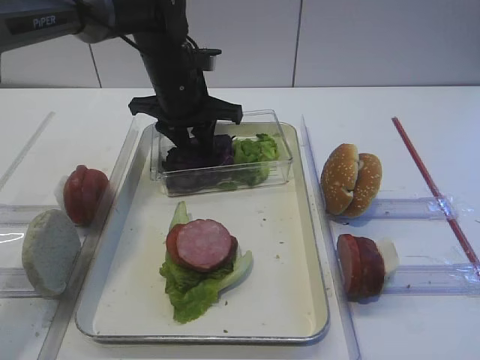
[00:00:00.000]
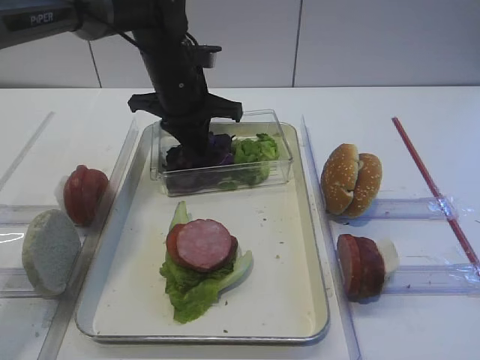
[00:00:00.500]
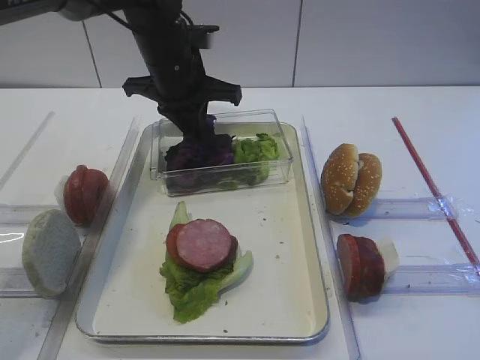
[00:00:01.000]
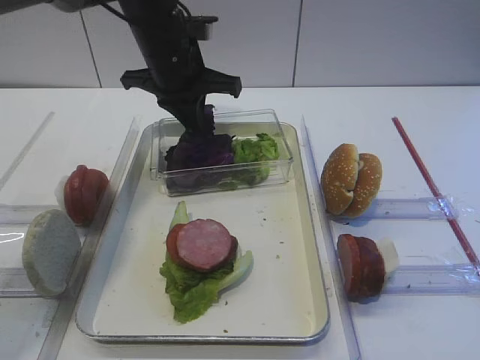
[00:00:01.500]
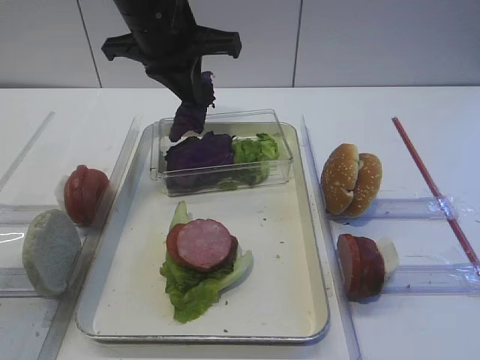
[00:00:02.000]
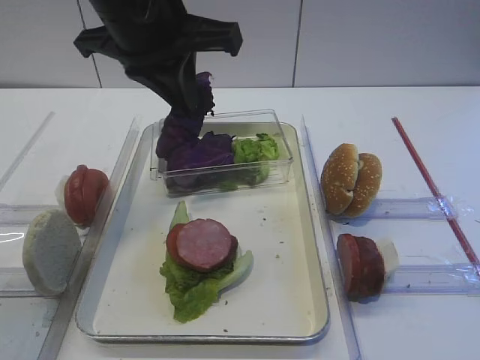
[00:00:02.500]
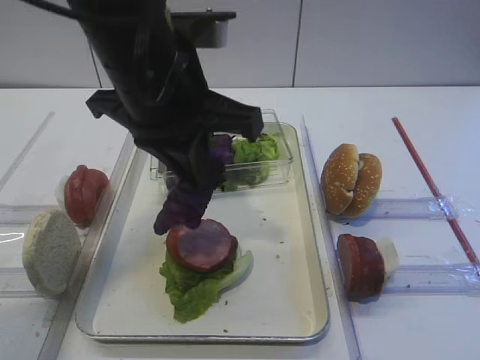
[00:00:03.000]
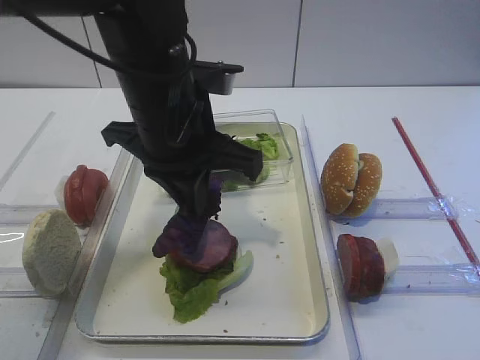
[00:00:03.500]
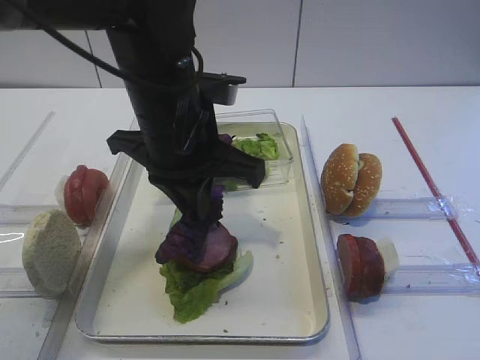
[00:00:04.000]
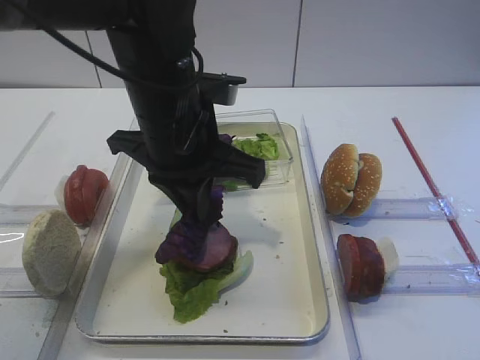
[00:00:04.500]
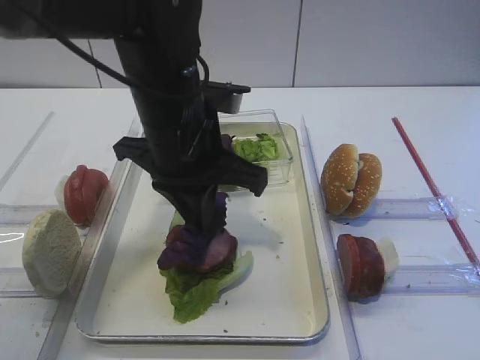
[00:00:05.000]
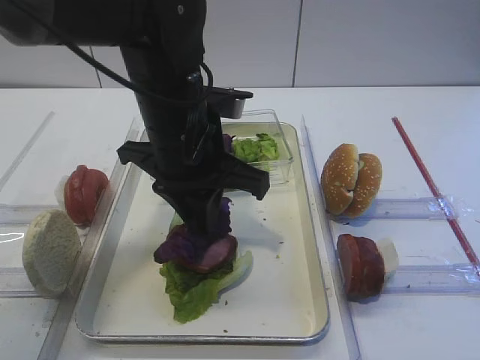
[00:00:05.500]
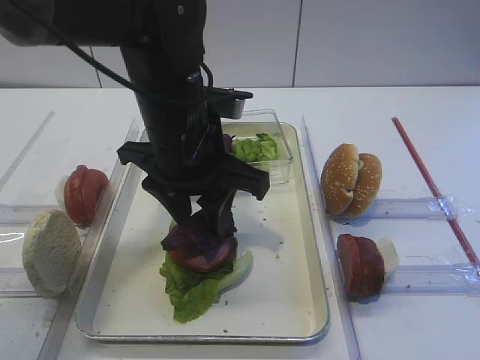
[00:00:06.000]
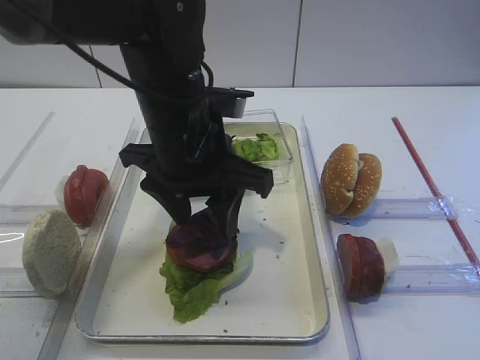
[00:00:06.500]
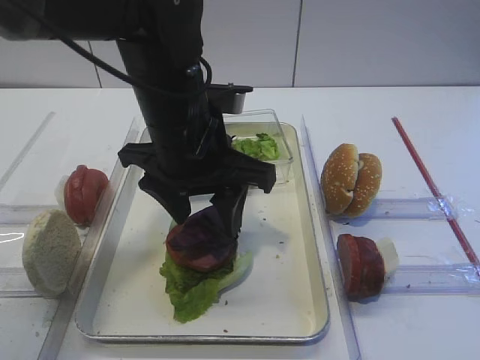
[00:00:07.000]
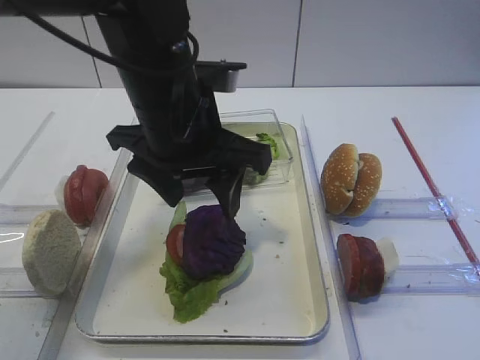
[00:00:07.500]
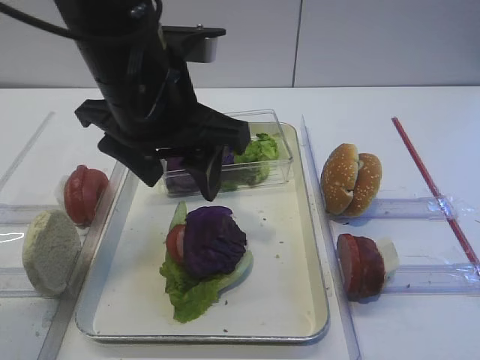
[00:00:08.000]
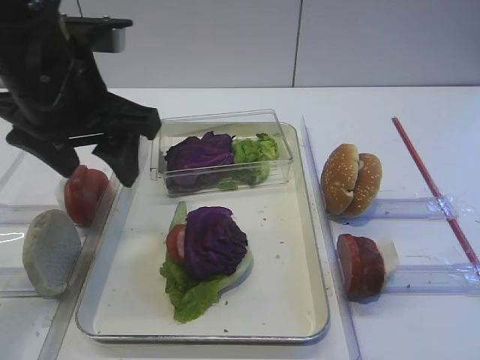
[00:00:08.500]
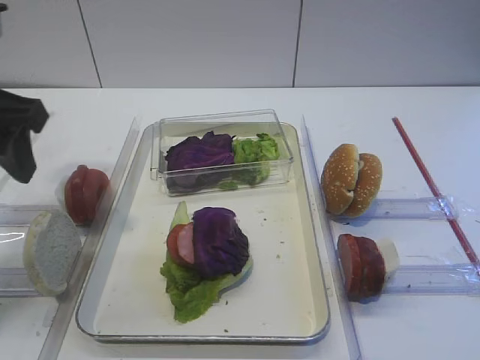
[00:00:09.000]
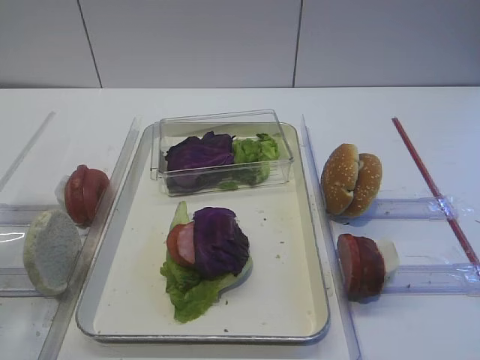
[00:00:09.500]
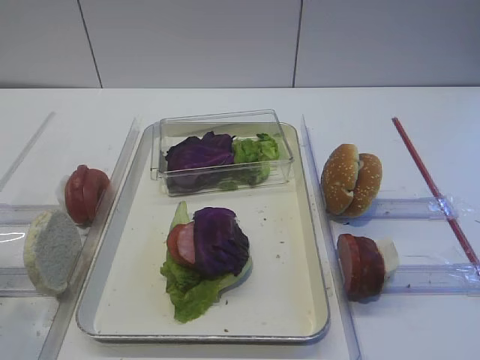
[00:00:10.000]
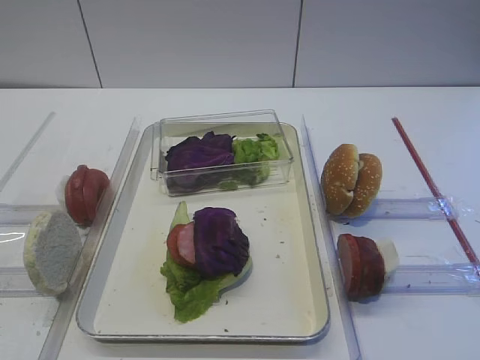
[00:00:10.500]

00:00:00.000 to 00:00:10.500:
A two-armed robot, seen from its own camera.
Step, 00:00:00.000 to 00:00:02.000: Pick up the purple cabbage with the left gripper.
Step, 00:00:02.500 to 00:00:08.500: Place the purple cabbage on the cutlet with the left gripper.
00:00:00.000 to 00:00:02.000: The left gripper heads upward, covering approximately 10 cm, and closes.
00:00:02.000 to 00:00:04.000: The left gripper is displaced backward and downward by about 10 cm.
00:00:04.000 to 00:00:06.500: The left gripper opens.
00:00:06.500 to 00:00:08.500: The left gripper moves to the left and upward, about 10 cm.
00:00:08.500 to 00:00:10.500: The left gripper moves backward and to the left, approximately 30 cm.

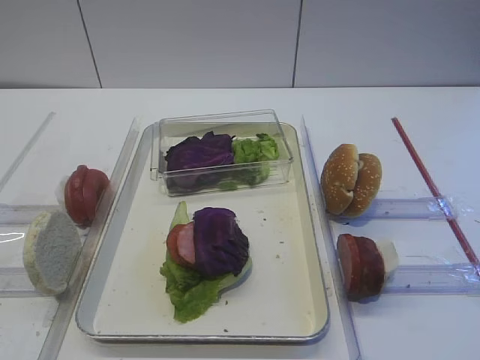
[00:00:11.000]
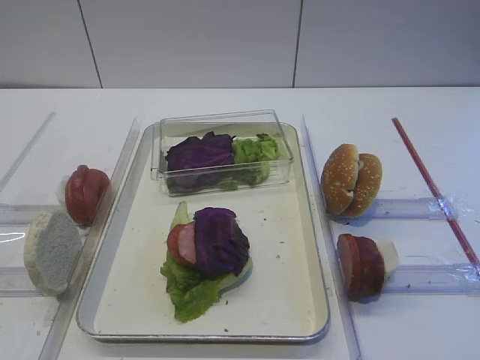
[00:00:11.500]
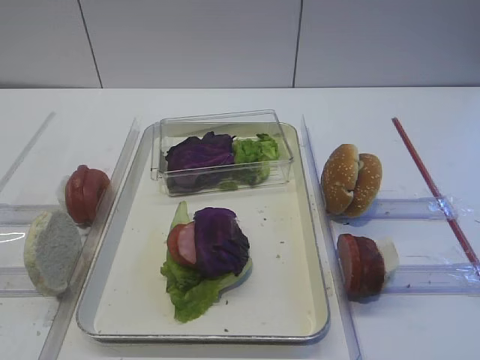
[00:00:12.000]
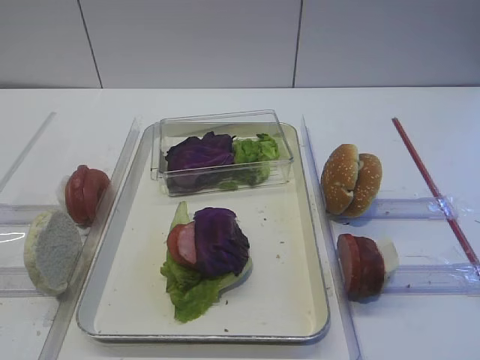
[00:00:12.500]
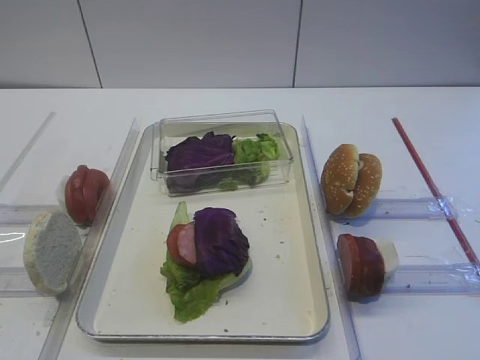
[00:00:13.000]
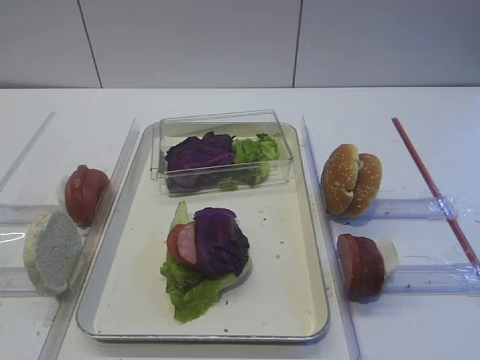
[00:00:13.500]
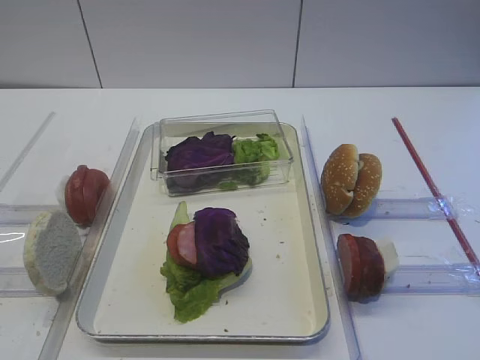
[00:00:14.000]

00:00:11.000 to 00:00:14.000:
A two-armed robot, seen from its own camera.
00:00:12.500 to 00:00:14.000: Both grippers stay about where they are.

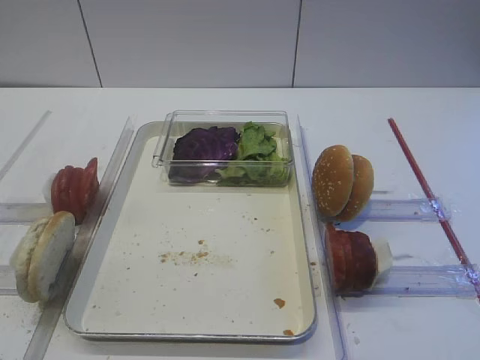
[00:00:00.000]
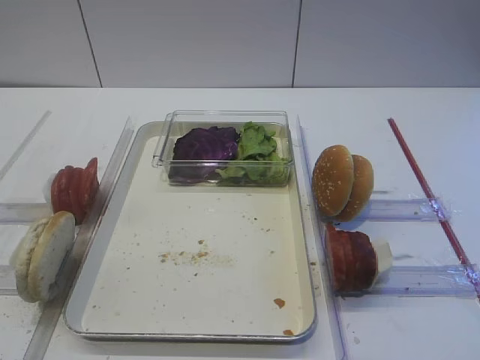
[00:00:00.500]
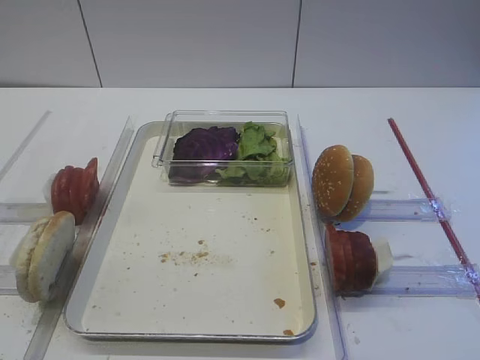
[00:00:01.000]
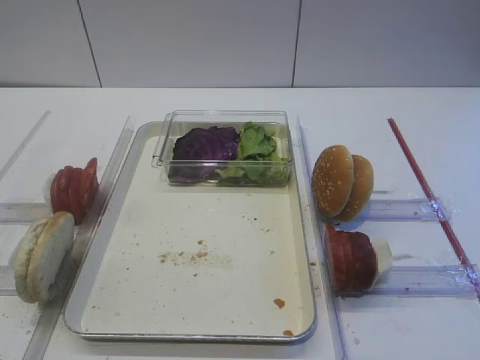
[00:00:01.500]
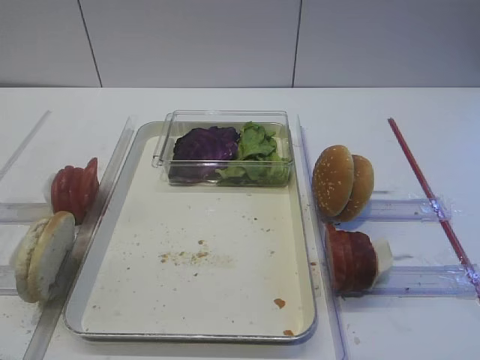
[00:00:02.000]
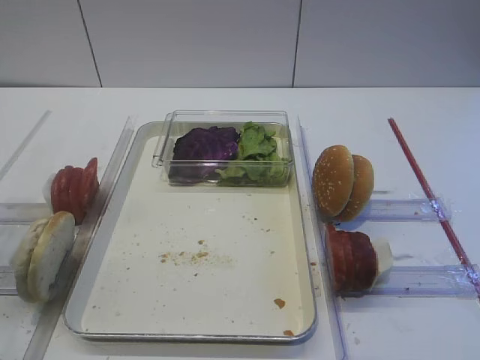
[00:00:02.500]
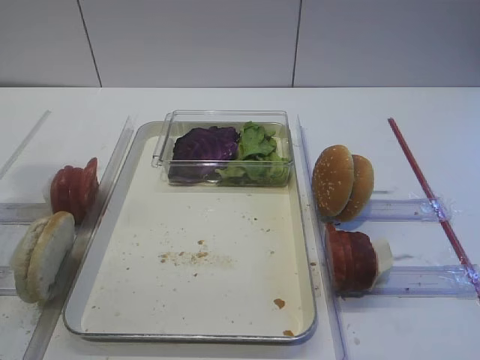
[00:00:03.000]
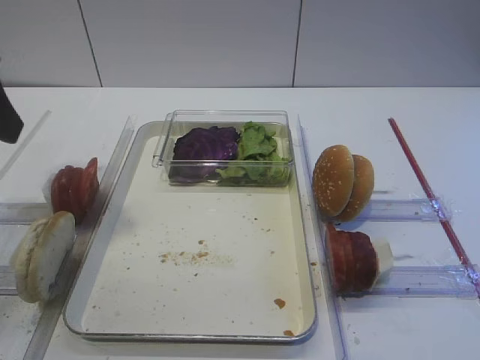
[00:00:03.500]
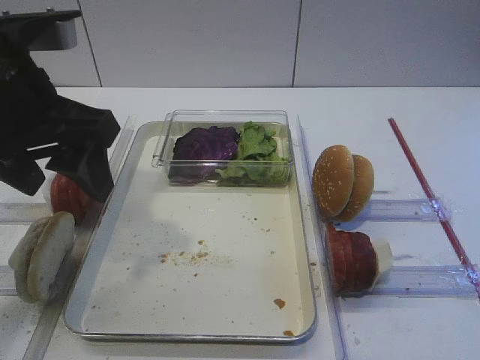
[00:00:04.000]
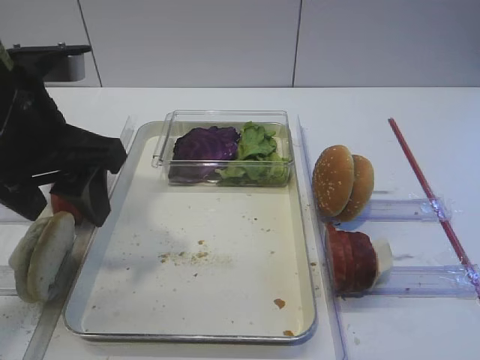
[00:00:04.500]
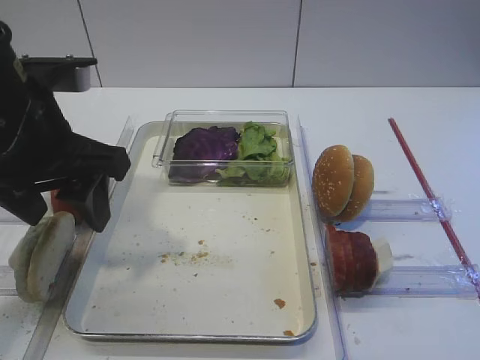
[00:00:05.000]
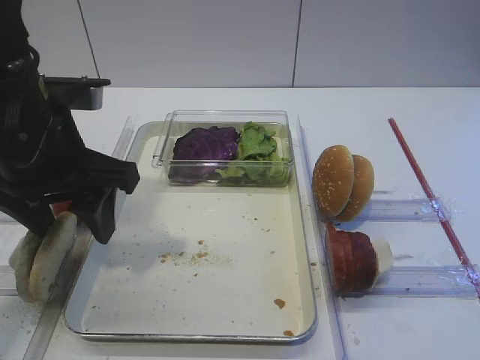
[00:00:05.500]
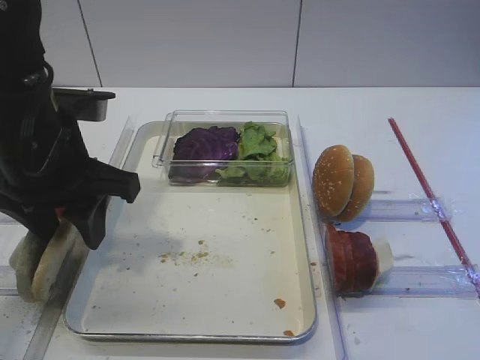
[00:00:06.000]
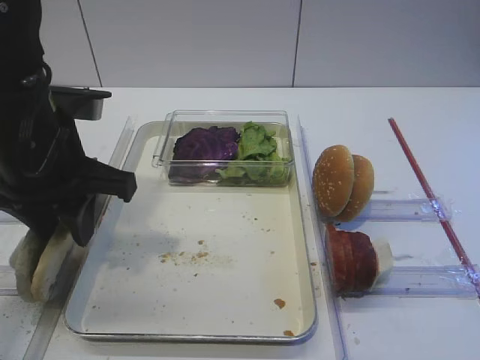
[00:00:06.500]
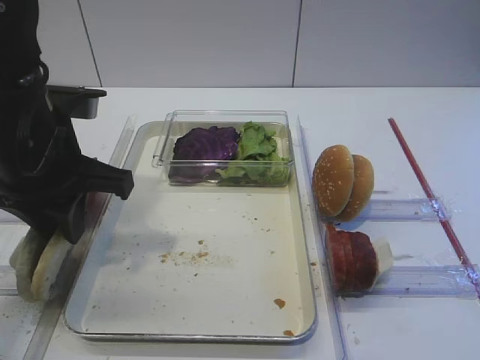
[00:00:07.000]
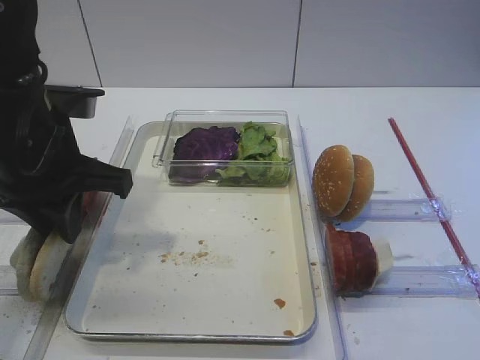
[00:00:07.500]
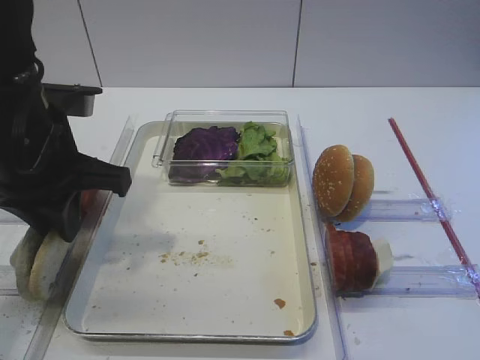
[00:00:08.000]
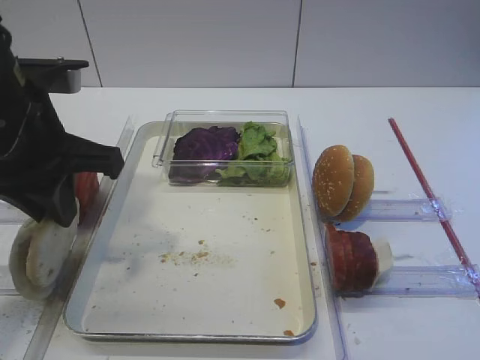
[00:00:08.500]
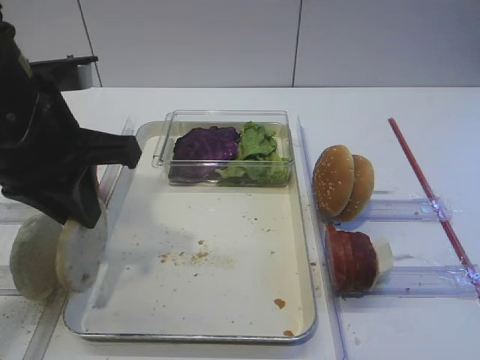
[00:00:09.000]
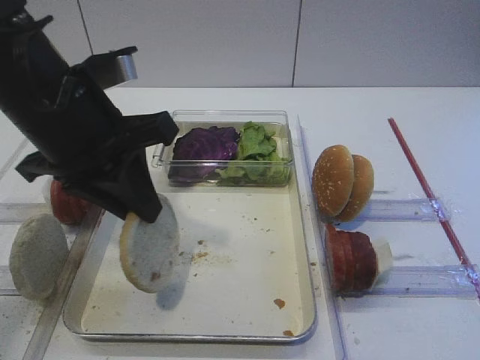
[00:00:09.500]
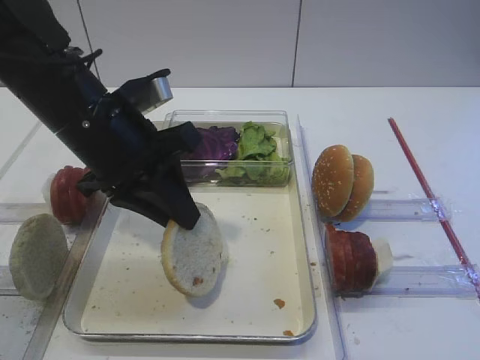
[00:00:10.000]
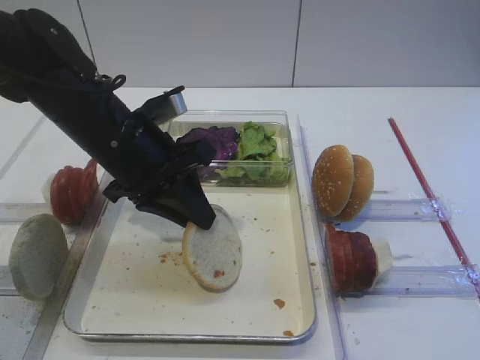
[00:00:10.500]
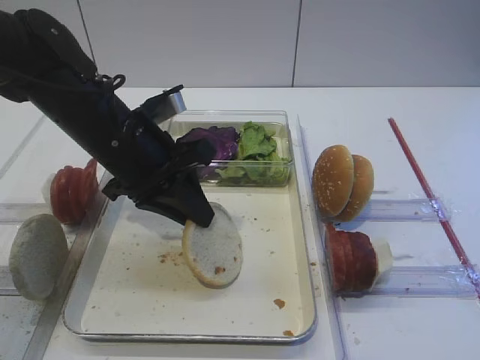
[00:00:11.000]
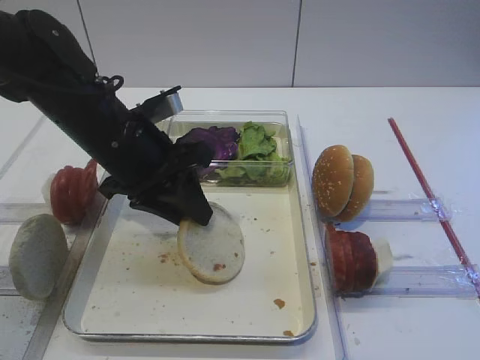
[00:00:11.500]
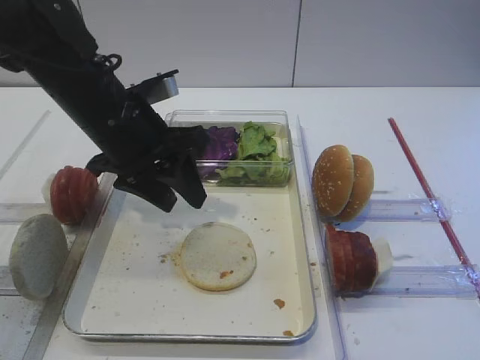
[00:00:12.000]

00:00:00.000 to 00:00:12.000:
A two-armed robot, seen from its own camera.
Step, 00:00:00.000 to 00:00:08.500: Pick up the bread slice with the left gripper.
Step, 00:00:09.000 to 00:00:11.500: Place the bread slice on the tray with the left gripper.
00:00:02.000 to 00:00:04.000: The left gripper travels forward and to the right by about 25 cm.
00:00:04.000 to 00:00:06.000: The left gripper is displaced downward by about 5 cm.
00:00:06.000 to 00:00:08.000: The left gripper closes.
00:00:10.000 to 00:00:12.000: The left gripper opens up.
